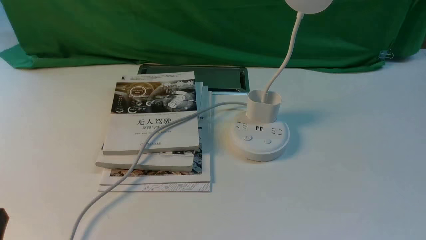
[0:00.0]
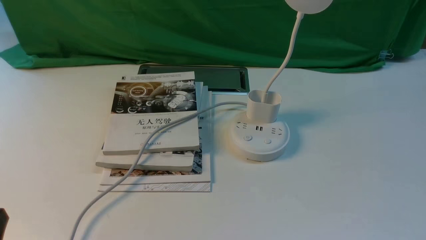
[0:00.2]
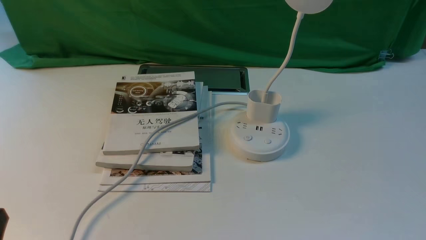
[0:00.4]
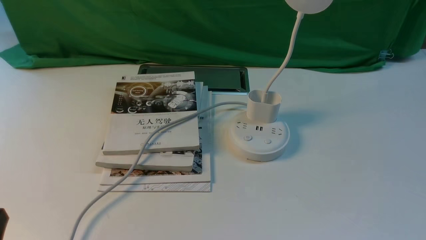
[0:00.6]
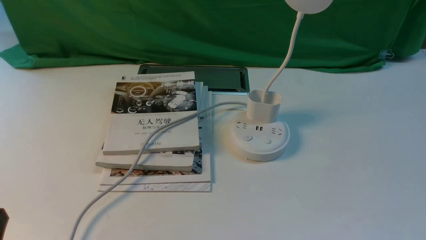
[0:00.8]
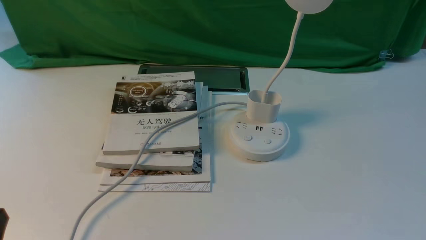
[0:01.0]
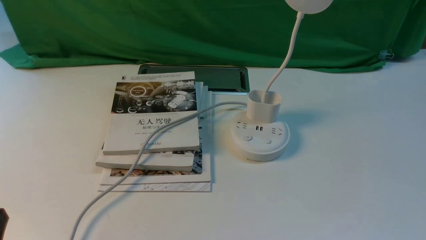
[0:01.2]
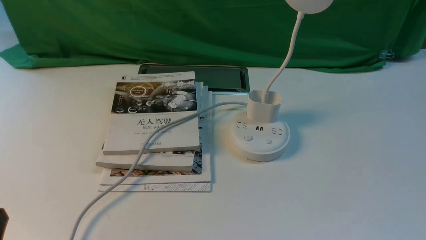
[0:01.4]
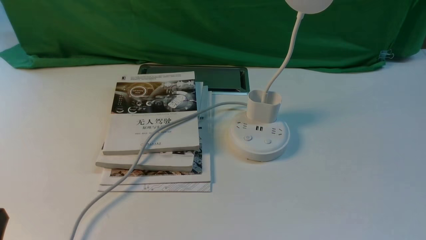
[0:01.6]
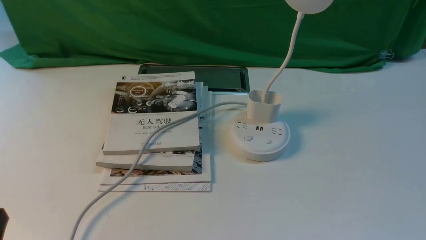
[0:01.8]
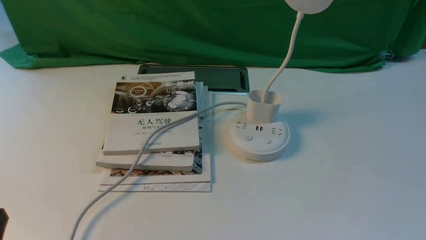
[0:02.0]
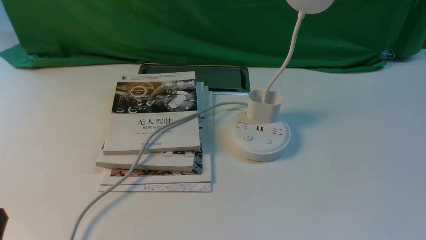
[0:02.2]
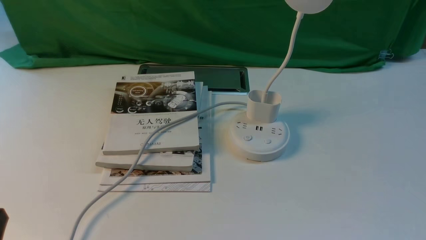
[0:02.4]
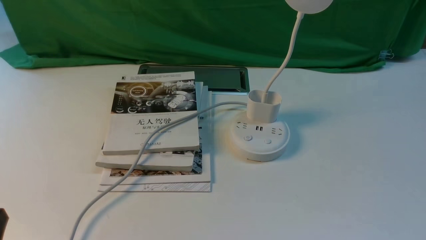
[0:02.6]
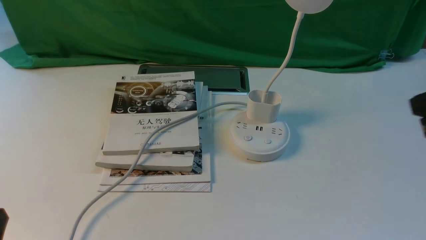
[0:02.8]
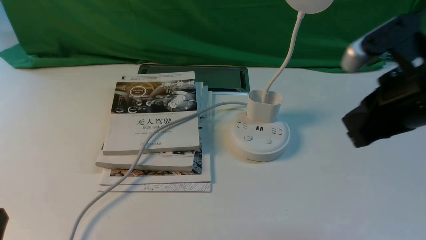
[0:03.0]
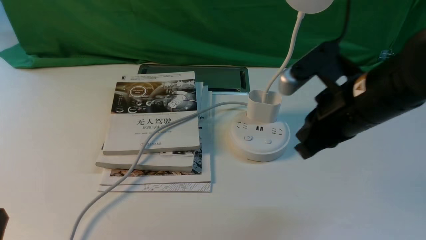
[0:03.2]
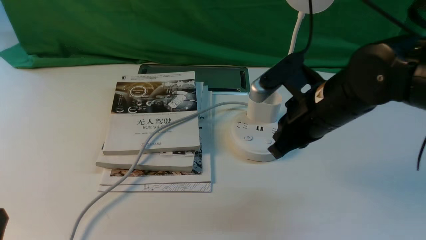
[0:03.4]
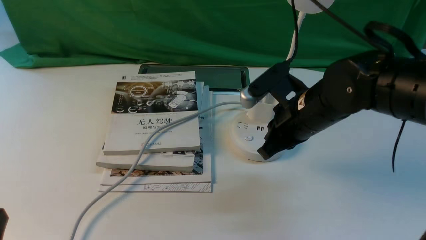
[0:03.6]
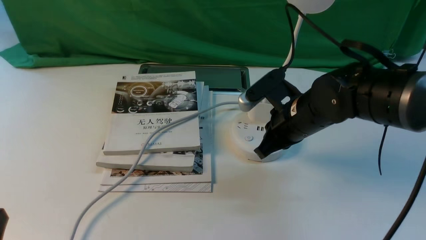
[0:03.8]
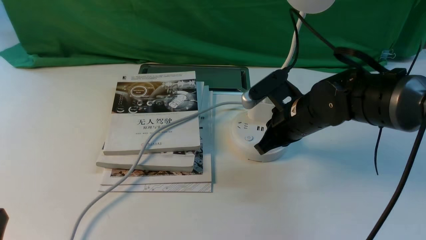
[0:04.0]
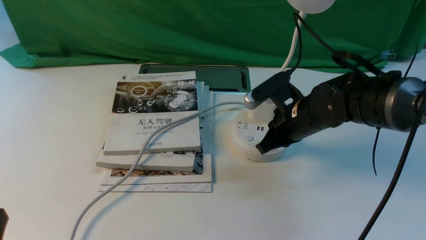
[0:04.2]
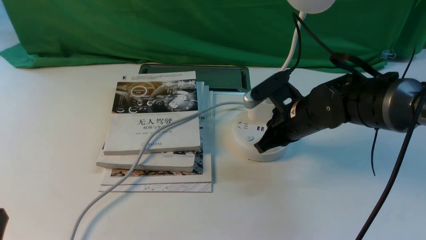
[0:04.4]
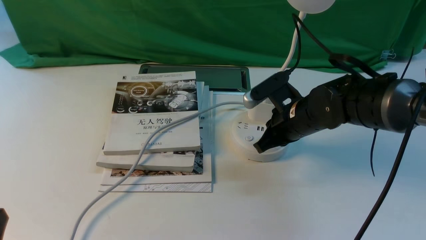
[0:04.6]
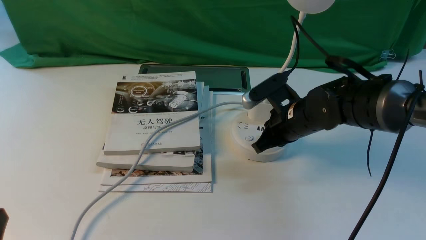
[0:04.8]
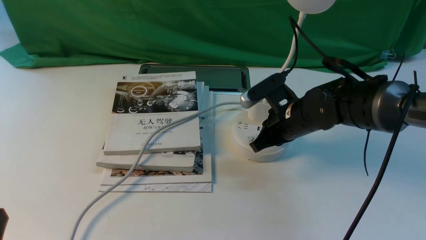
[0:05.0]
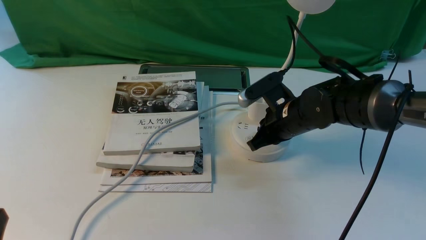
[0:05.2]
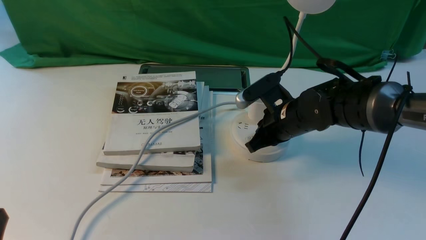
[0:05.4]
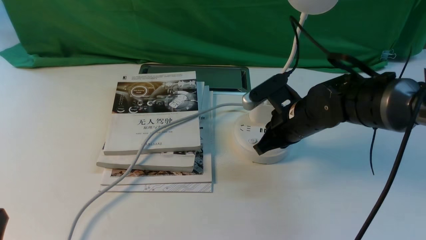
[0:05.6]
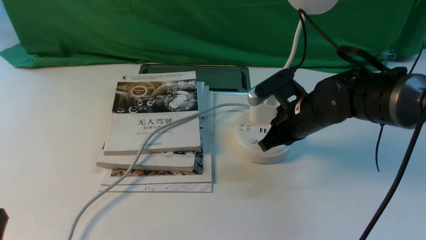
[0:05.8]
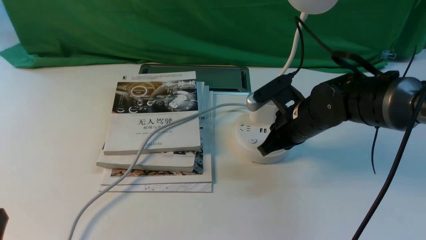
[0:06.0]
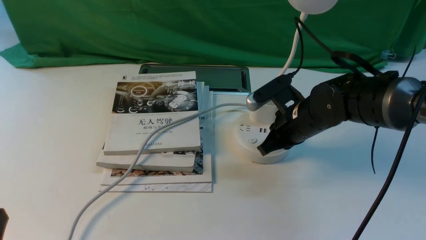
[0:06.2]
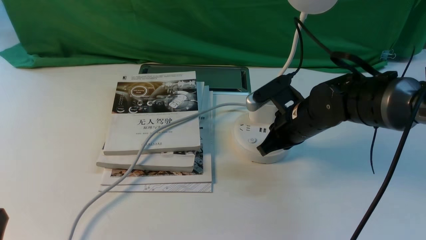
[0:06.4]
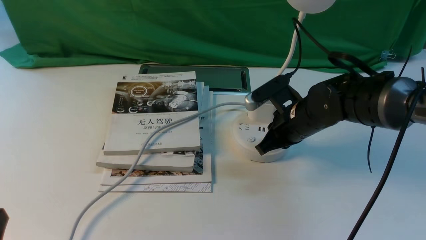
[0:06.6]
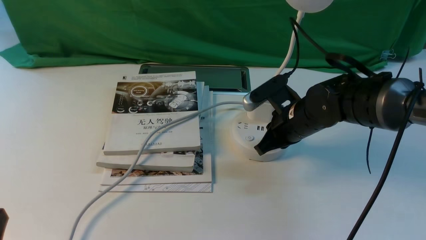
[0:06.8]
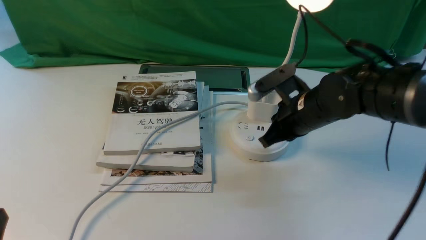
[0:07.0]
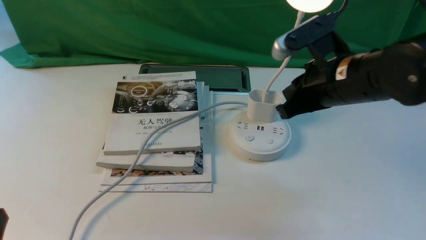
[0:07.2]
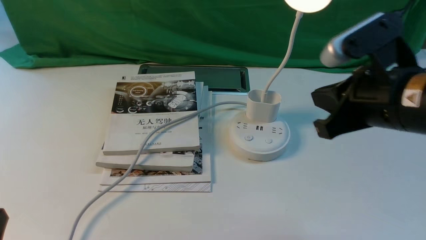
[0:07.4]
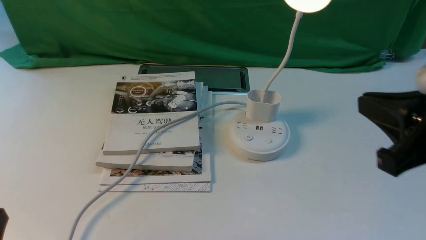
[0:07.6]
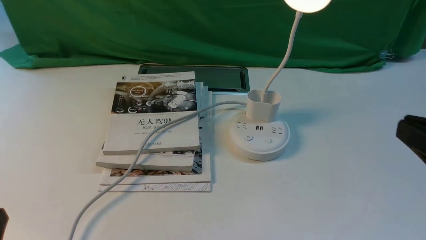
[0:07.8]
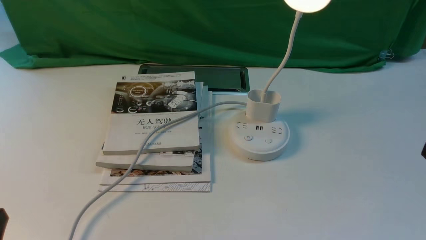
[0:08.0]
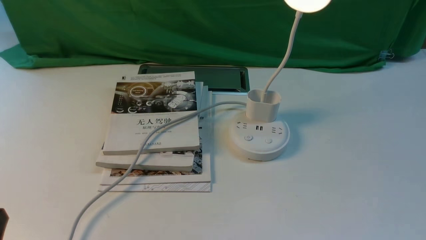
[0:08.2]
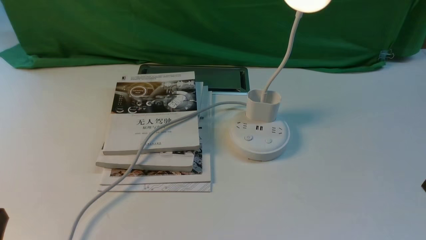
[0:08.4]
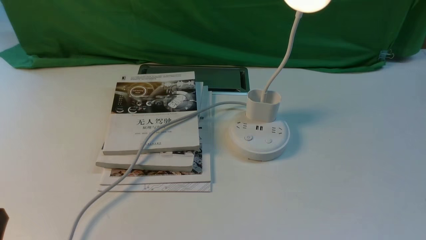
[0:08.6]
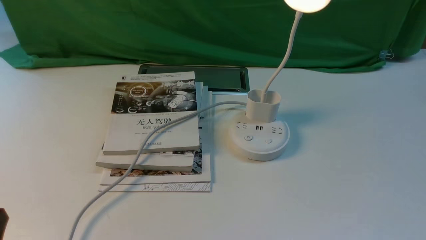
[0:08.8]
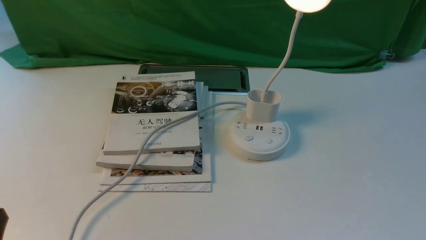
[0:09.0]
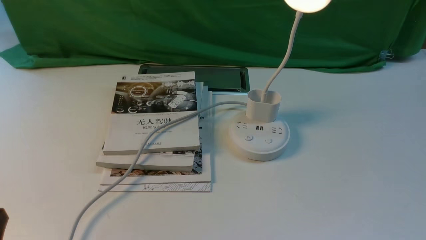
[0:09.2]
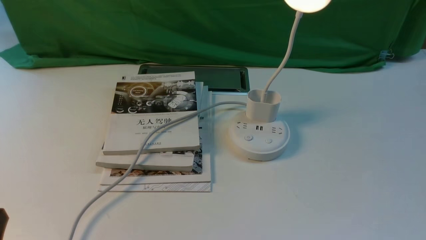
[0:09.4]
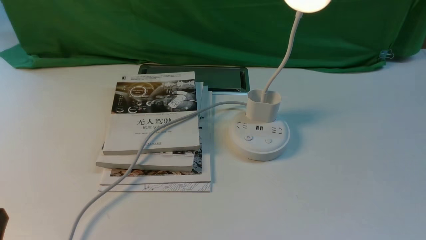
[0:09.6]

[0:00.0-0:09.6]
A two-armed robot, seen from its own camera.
Step, 0:00.0 to 0:07.0: use the right arm to press the button switch on the lamp holder.
0:01.6 to 0:03.2: The right gripper shifts roughly 30 cm forward, to the left and upward, and closes its fingers.
0:03.2 to 0:04.8: The right gripper heads downward and forward, covering roughly 15 cm.
0:04.8 to 0:06.4: Neither gripper changes place.
0:06.4 to 0:08.0: The right gripper goes approximately 35 cm backward, upward and to the right.

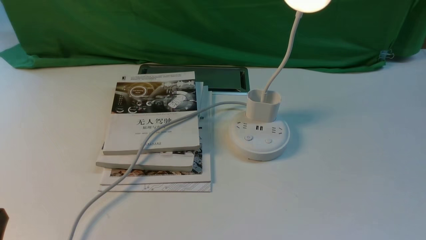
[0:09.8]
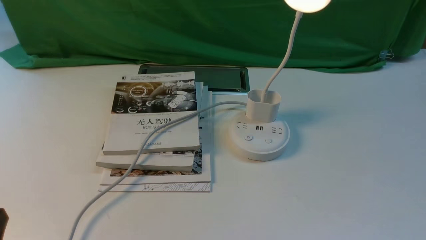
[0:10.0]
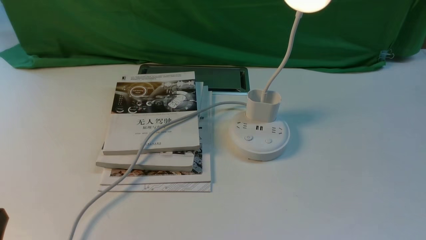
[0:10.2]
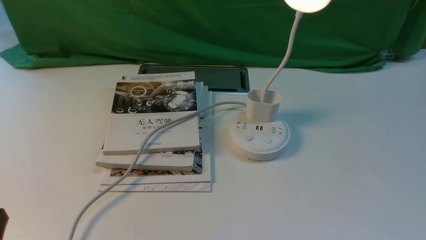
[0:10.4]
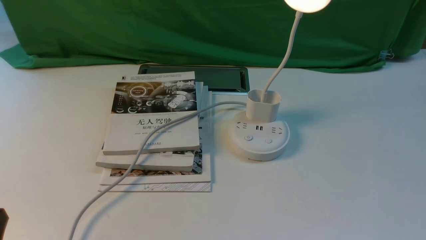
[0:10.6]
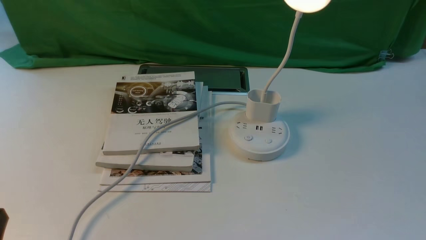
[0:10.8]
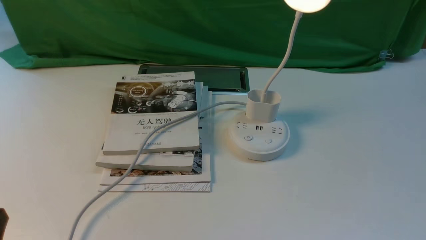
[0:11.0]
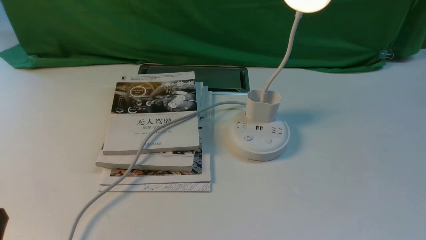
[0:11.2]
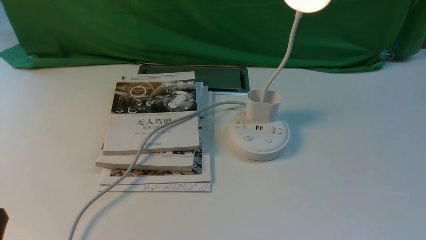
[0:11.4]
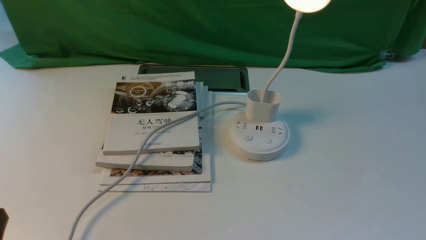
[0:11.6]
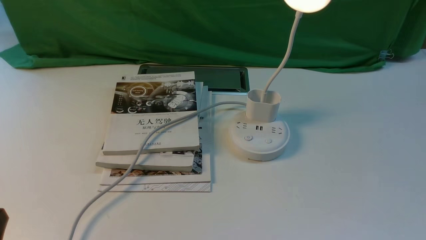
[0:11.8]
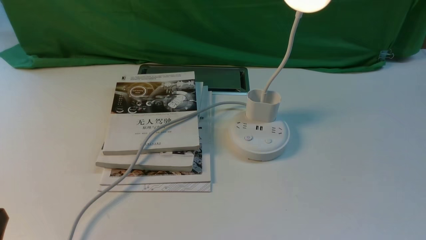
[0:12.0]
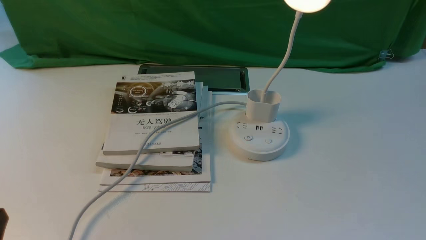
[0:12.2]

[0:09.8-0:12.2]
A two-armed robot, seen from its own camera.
0:09.8 to 0:12.2: Both grippers stay put.
